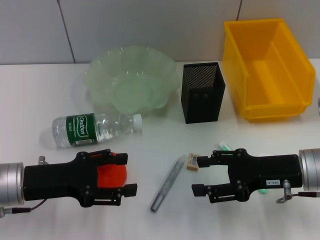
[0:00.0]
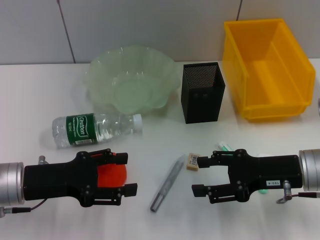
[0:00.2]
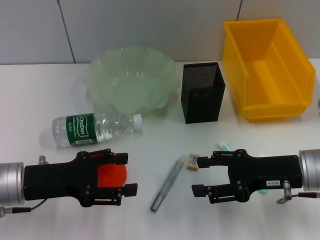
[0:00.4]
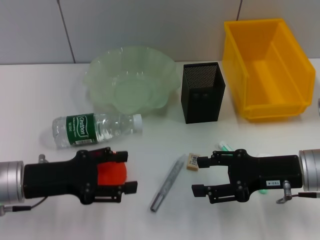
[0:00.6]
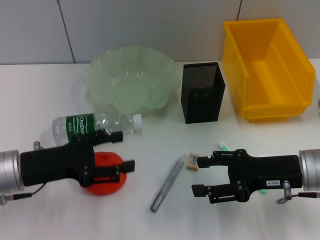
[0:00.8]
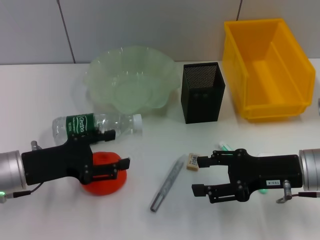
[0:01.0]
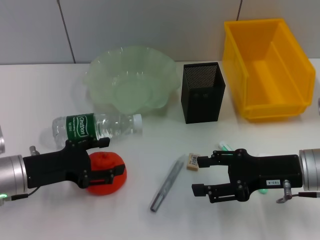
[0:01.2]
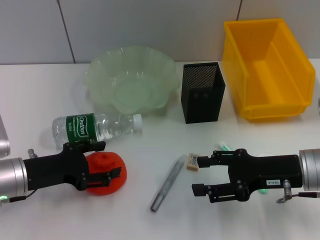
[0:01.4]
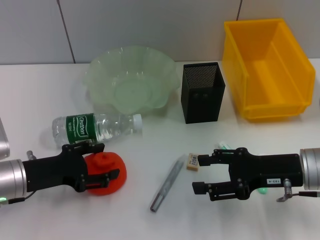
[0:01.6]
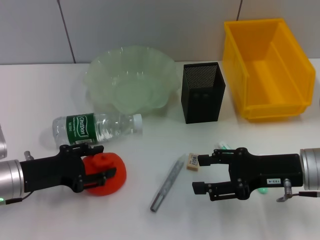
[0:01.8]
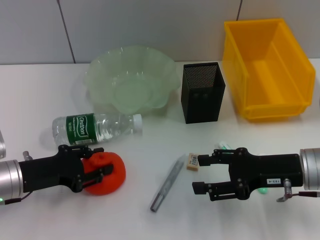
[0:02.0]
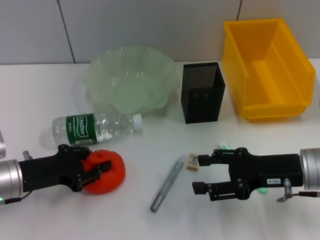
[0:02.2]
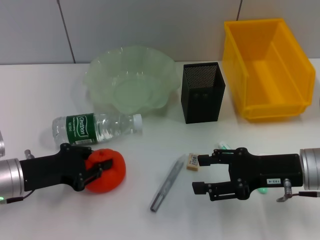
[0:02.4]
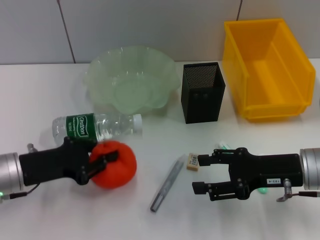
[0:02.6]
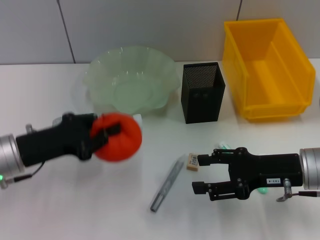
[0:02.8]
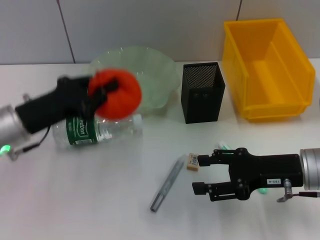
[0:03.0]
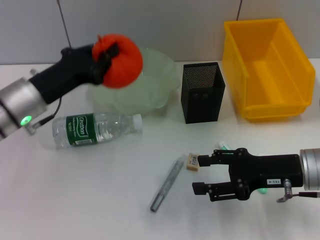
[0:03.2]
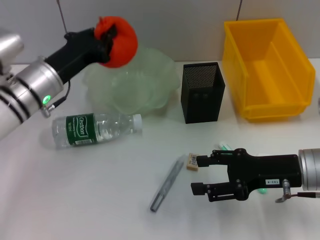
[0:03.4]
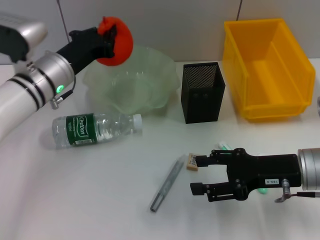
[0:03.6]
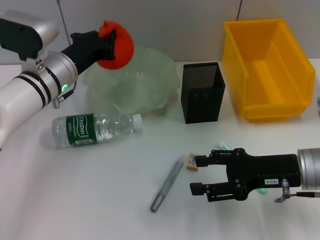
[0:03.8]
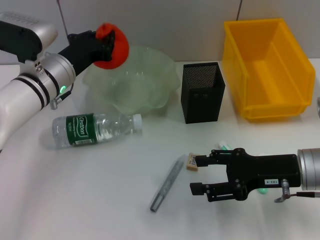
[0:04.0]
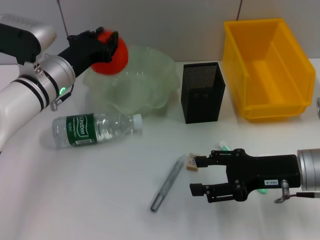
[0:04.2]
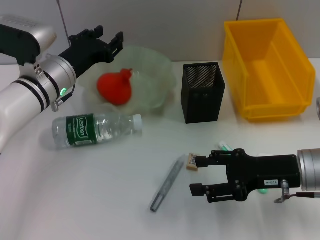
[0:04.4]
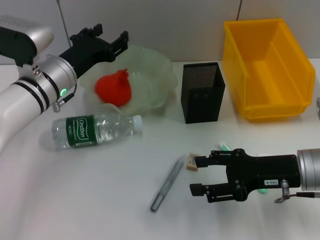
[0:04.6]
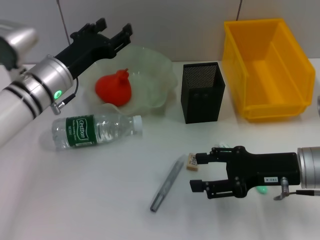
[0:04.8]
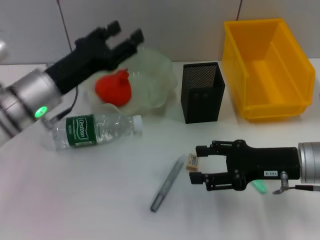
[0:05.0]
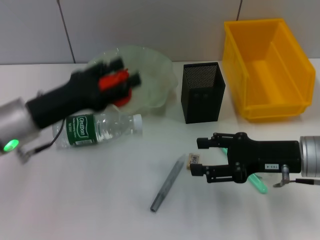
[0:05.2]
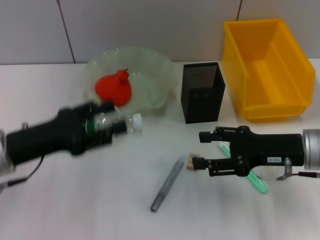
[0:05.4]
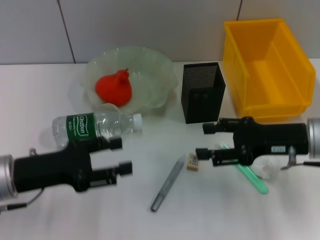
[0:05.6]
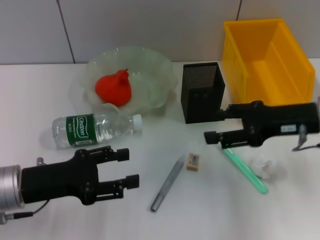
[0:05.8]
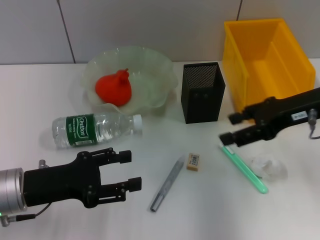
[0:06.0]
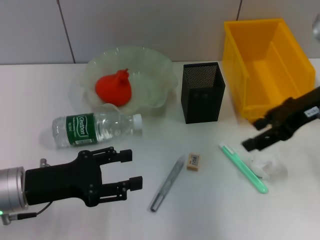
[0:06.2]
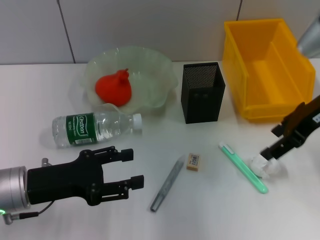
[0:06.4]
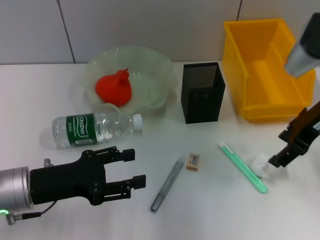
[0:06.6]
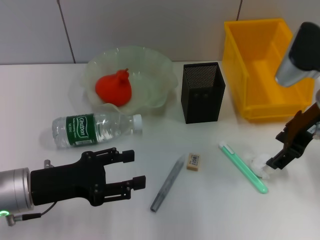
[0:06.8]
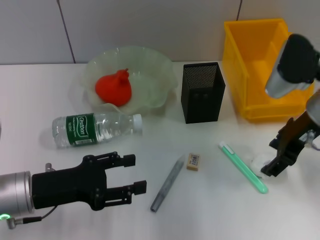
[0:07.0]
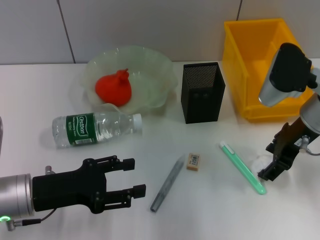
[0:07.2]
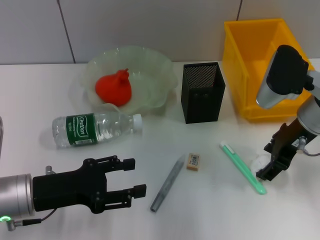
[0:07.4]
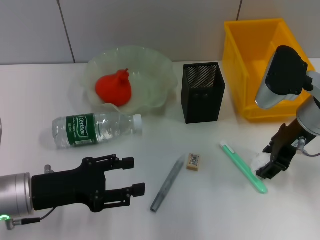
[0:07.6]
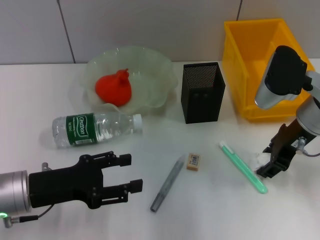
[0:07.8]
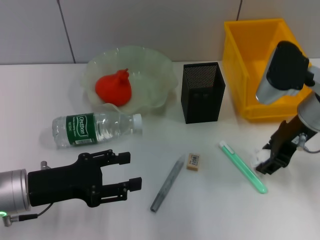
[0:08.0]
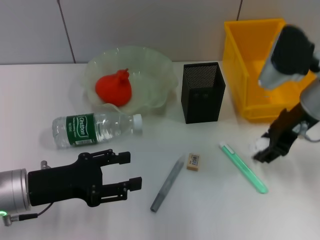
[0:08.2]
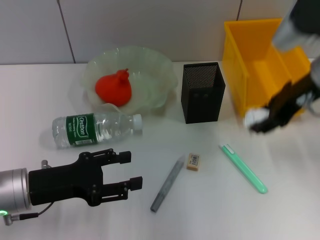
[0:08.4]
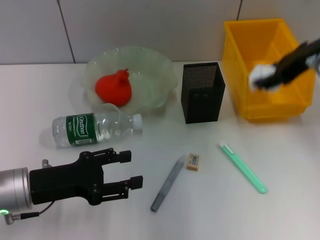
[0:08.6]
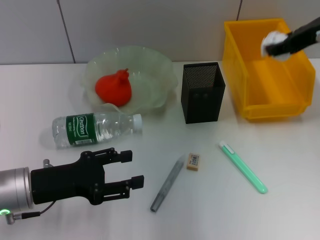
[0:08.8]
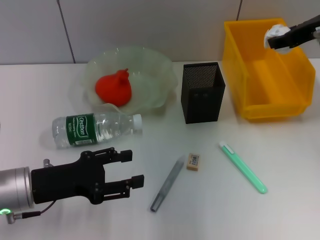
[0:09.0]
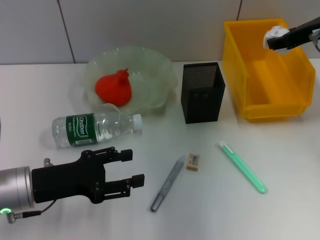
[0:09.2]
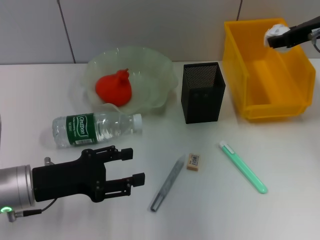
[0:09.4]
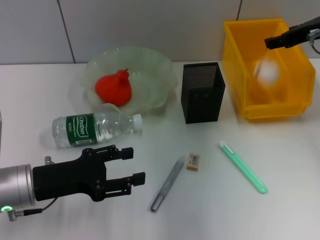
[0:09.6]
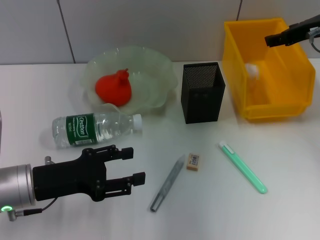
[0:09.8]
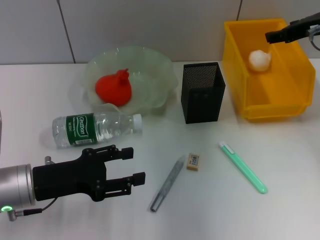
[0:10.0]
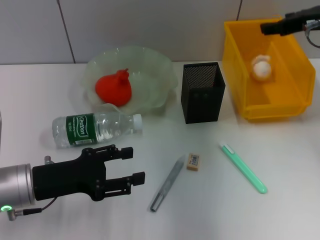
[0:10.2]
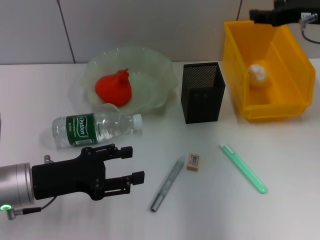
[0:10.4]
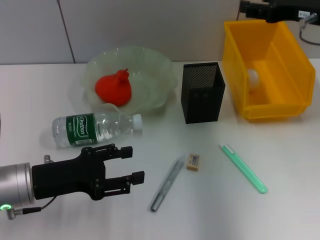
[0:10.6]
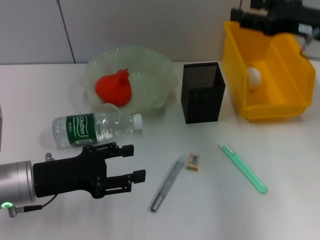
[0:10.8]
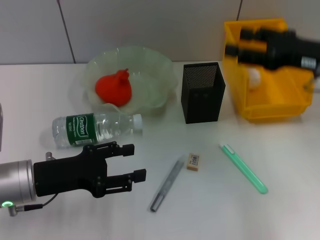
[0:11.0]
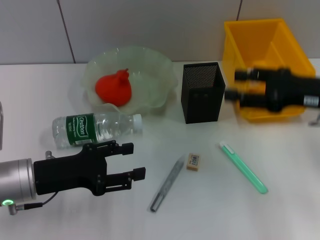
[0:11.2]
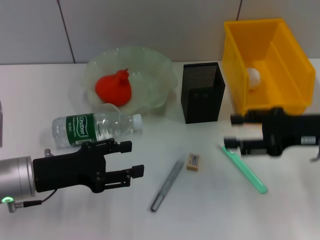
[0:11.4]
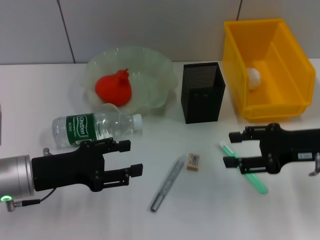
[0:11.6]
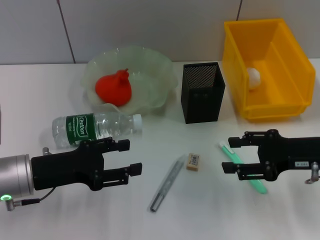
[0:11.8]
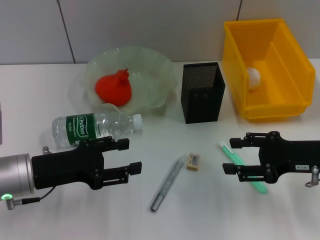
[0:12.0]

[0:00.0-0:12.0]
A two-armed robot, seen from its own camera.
Step, 0:00.0 to 0:02.2: Grab the orange with the left hand.
Step, 0:02.4 to 0:04.2: Place the orange into the fruit bowl with the left hand.
Step, 0:04.4 to 0:07.6: Grab the paper ball with the right hand.
Step, 0:08.0 to 0:09.6: Place the paper ball into the trash can with the right hand.
0:00.0 to 0:01.6: The grippers stay close to where they were, moving slightly.
0:01.6 to 0:03.0: The left gripper goes about 5 cm upward, and closes.
0:03.0 to 0:04.4: The left gripper travels forward and to the right by approximately 10 cm.
0:04.4 to 0:06.0: The right gripper is displaced upward and forward by roughly 10 cm. The left gripper goes roughly 15 cm backward, and opens its fingers.
0:06.0 to 0:07.6: The right gripper moves approximately 5 cm.
0:07.6 to 0:09.0: The right gripper moves upward, about 10 cm.
0:09.0 to 0:10.4: The grippers make only small movements.
0:10.4 to 0:12.0: The right gripper is displaced downward and backward by some 20 cm.

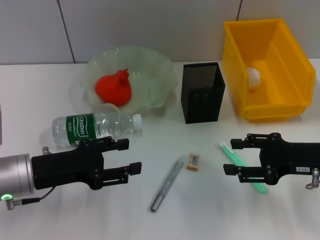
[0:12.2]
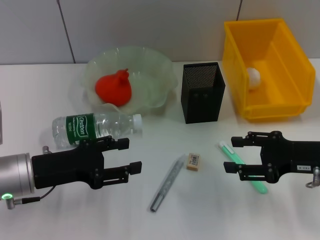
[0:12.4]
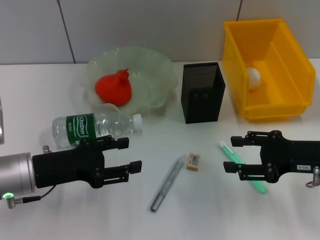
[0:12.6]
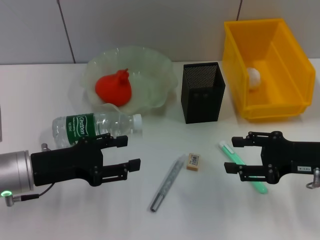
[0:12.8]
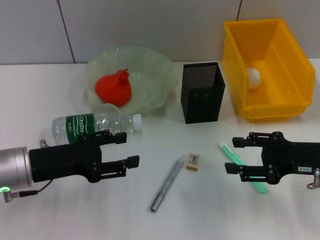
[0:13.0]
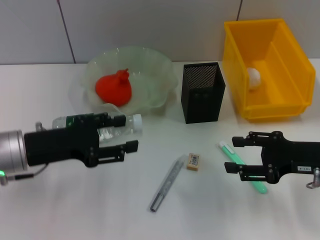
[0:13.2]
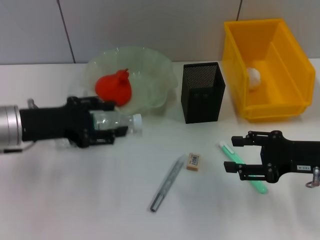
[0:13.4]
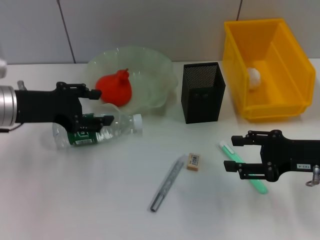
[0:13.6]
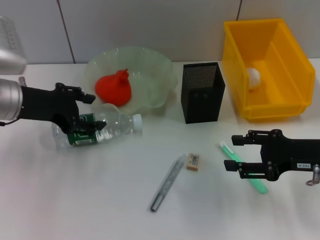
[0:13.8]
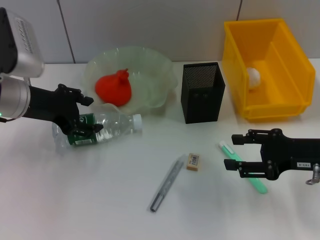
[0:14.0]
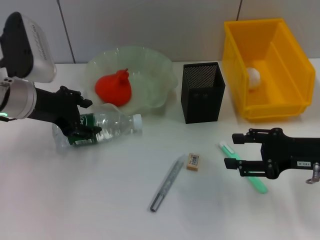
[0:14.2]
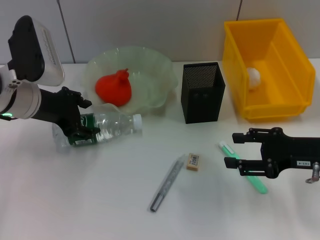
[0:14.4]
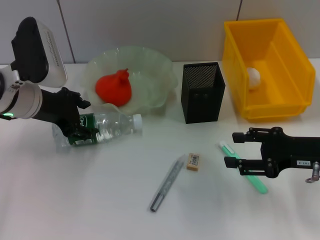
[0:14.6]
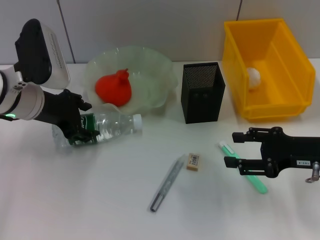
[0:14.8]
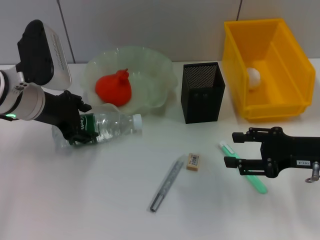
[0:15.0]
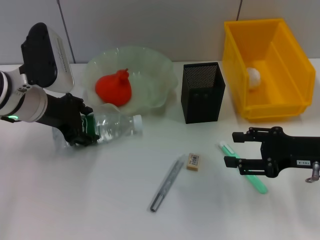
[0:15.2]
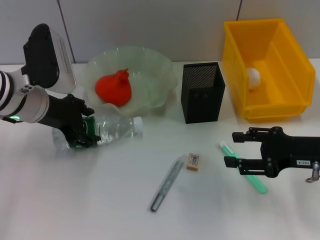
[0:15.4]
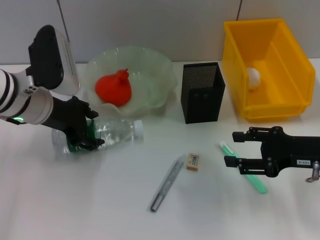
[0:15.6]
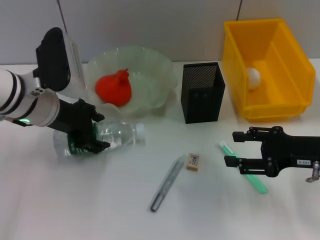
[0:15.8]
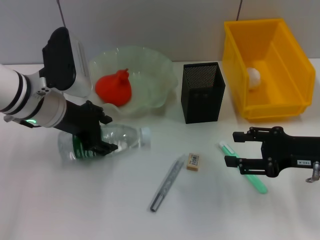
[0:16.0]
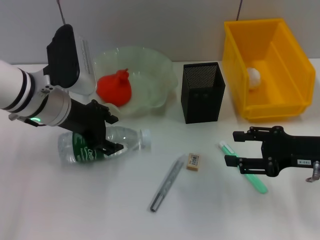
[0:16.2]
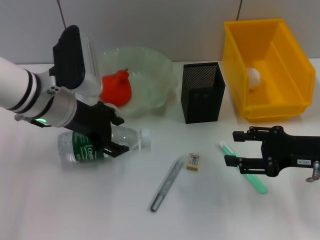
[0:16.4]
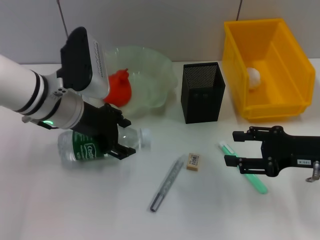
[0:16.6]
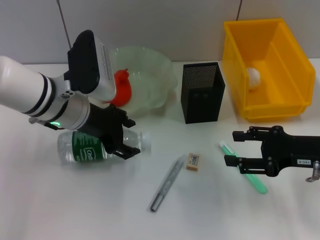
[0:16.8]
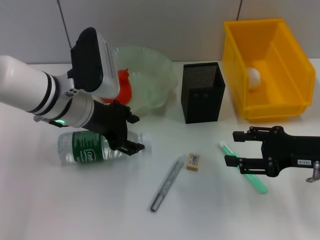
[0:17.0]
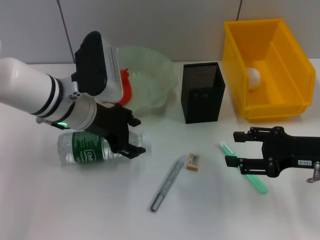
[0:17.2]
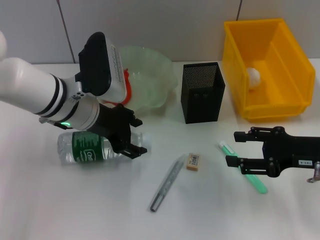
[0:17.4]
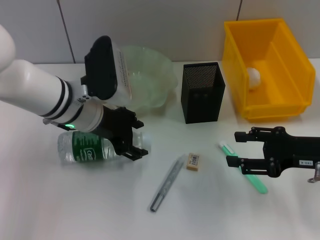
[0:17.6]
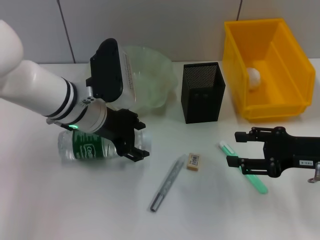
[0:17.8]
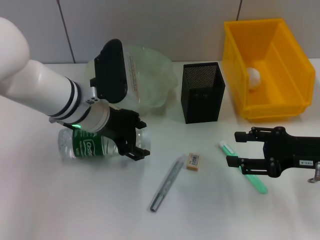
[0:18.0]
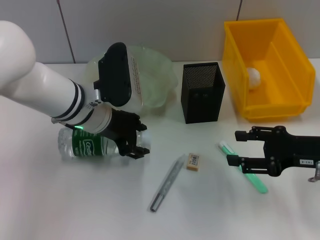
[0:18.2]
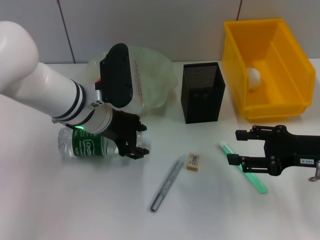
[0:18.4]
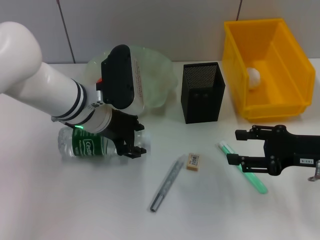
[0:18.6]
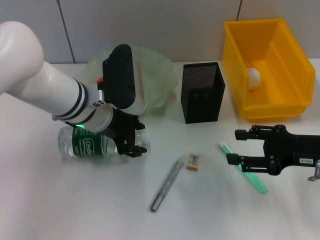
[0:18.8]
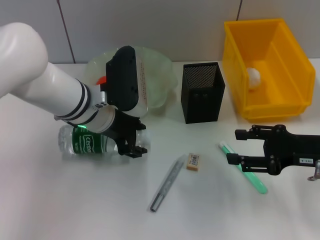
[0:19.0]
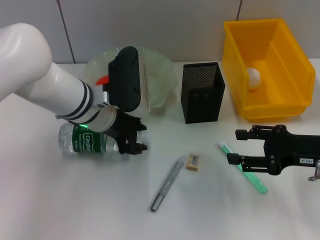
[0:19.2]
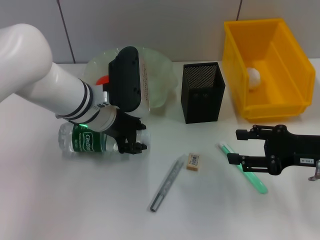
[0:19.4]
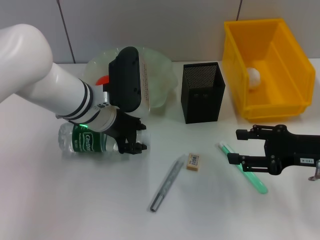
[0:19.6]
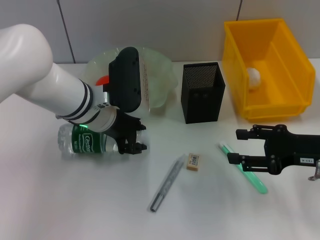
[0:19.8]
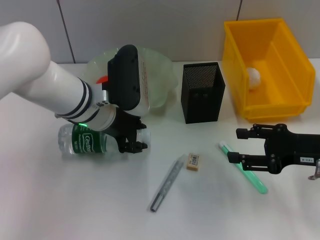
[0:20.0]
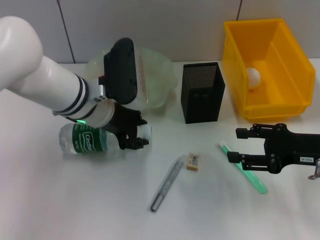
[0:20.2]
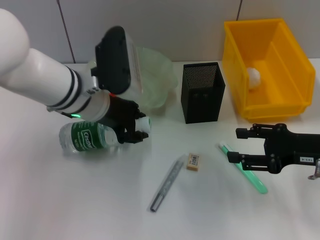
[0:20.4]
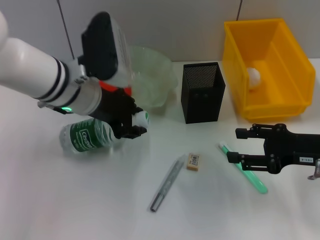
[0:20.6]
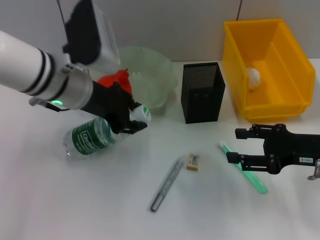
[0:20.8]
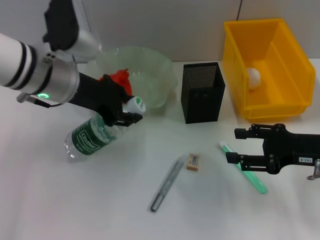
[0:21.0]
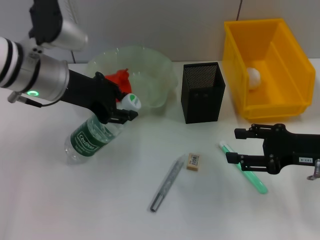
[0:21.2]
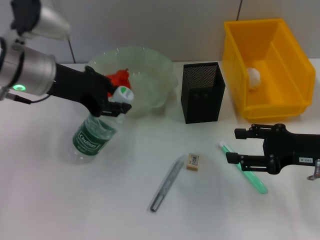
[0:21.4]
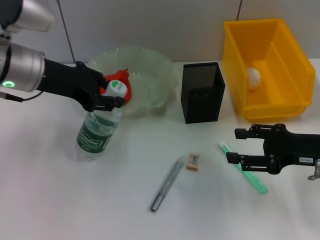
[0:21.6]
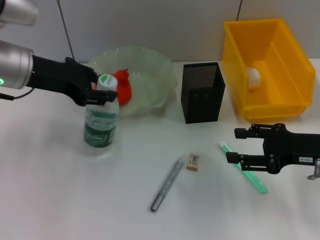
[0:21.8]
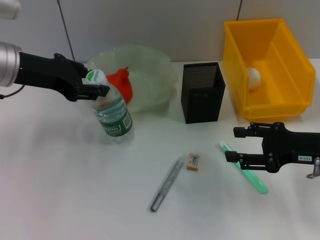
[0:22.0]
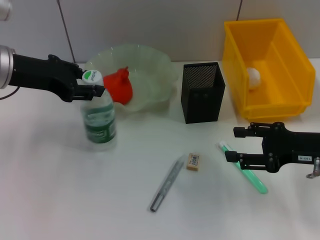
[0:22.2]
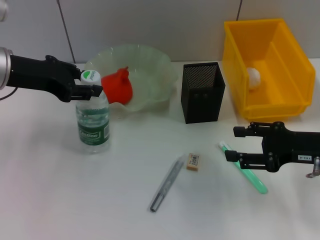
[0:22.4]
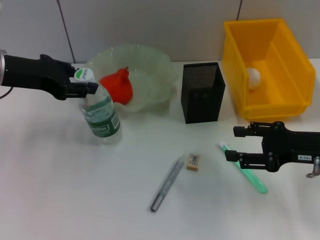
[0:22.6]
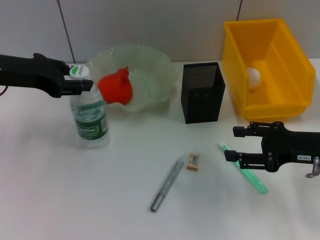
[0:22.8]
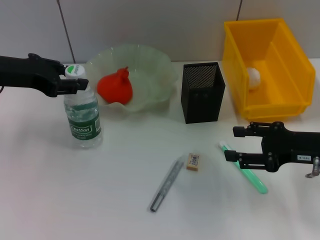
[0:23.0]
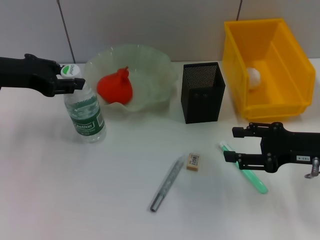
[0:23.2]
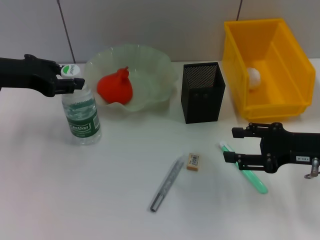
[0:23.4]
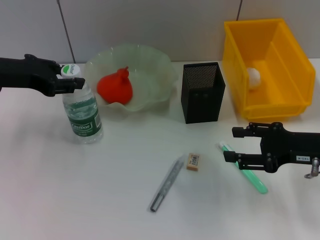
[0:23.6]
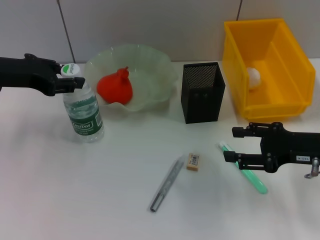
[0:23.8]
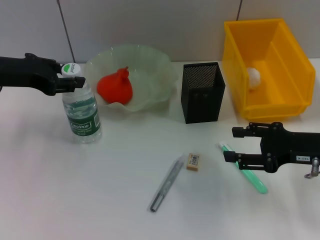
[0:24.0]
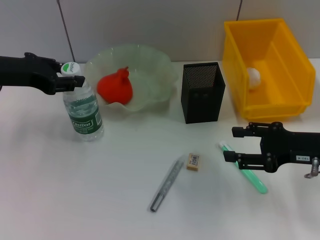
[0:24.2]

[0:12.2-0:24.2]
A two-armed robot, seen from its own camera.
Step, 0:12.2 to 0:19.8: Grab the water bottle with the left hand.
0:12.2 to 0:13.8: The left gripper travels forward and upward by approximately 10 cm.
0:13.8 to 0:15.2: The grippers move only a little.
0:15.2 to 0:16.6: The left gripper is displaced to the right by roughly 5 cm.
0:16.6 to 0:19.8: There are only small adjustments of the grippers.
0:19.8 to 0:21.2: The left gripper is displaced upward and to the left by approximately 10 cm.
0:21.2 to 0:22.6: The left gripper heads to the left, covering some 10 cm.
0:22.6 to 0:24.2: The grippers stay close to where they were, moving slightly.
